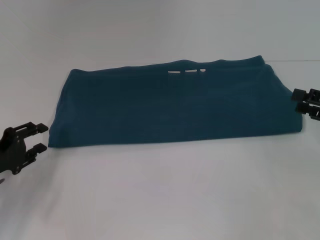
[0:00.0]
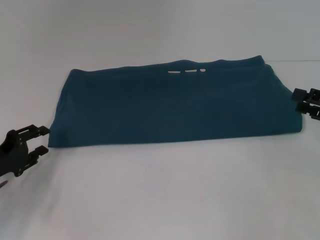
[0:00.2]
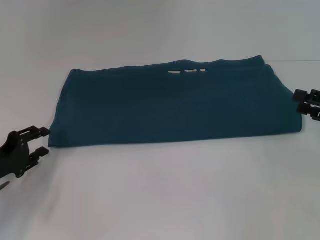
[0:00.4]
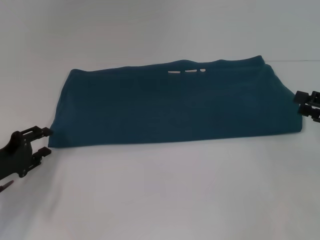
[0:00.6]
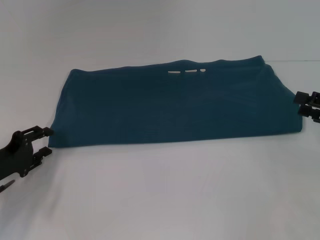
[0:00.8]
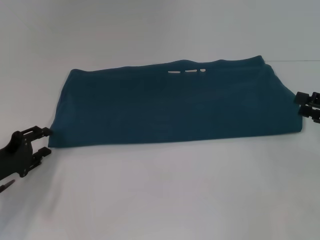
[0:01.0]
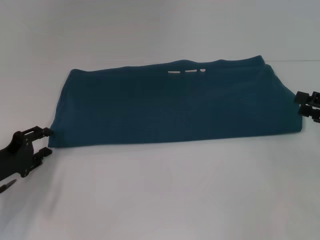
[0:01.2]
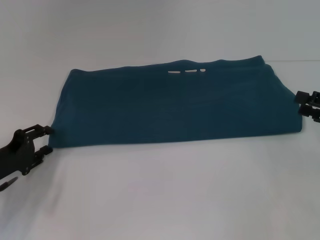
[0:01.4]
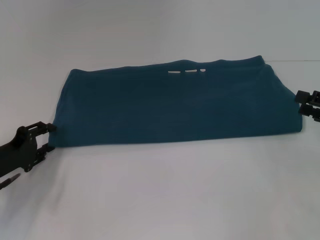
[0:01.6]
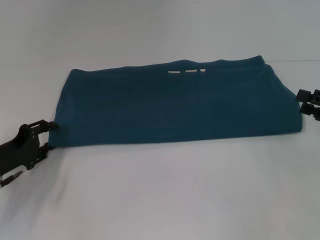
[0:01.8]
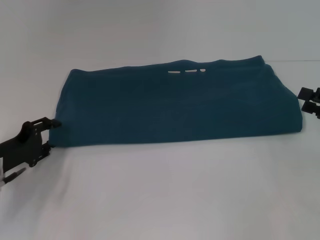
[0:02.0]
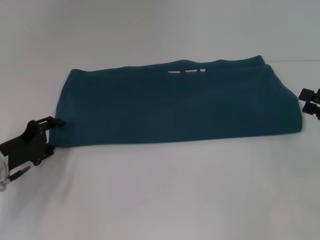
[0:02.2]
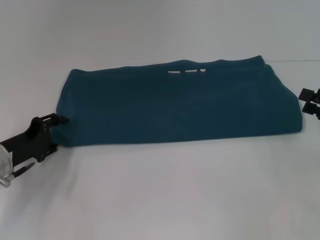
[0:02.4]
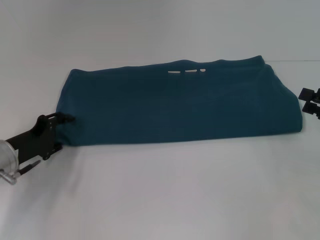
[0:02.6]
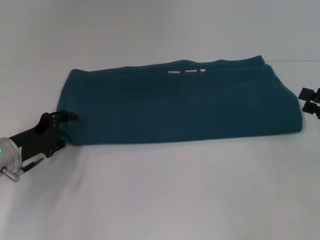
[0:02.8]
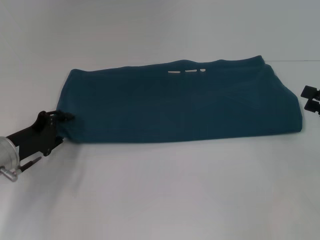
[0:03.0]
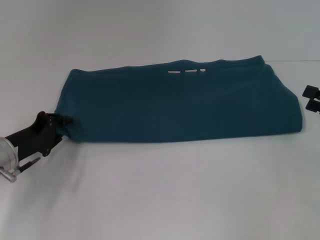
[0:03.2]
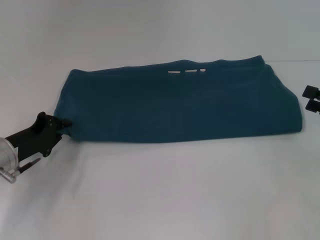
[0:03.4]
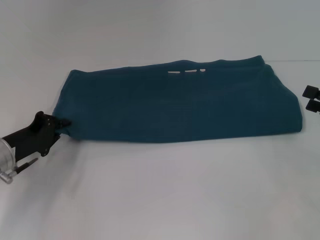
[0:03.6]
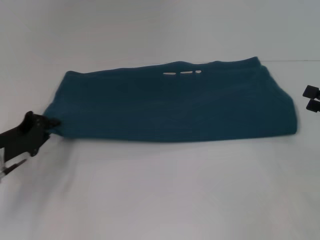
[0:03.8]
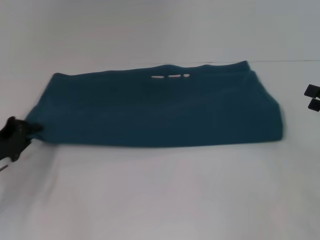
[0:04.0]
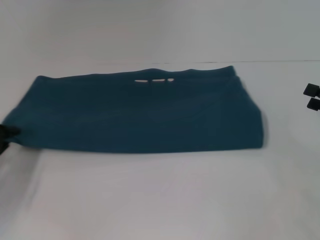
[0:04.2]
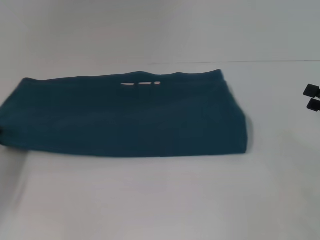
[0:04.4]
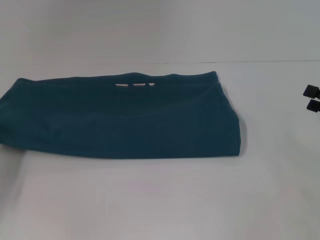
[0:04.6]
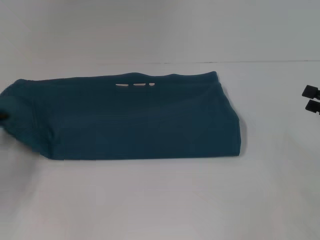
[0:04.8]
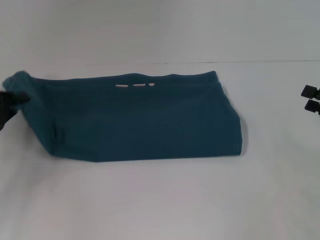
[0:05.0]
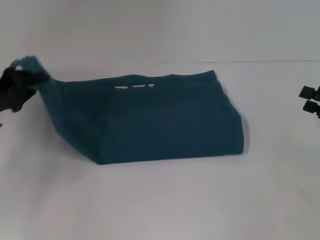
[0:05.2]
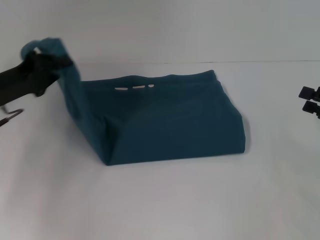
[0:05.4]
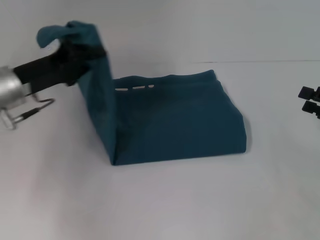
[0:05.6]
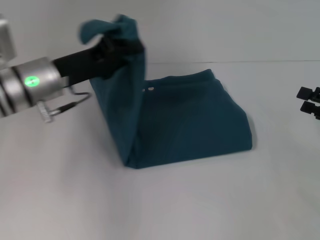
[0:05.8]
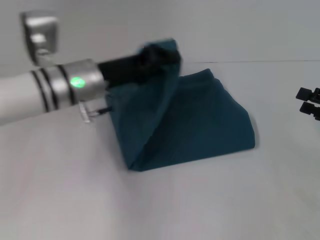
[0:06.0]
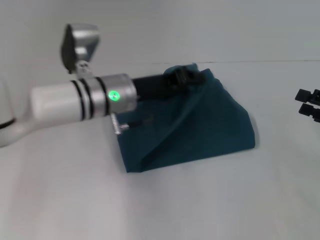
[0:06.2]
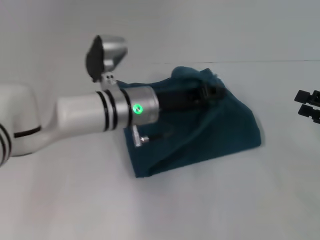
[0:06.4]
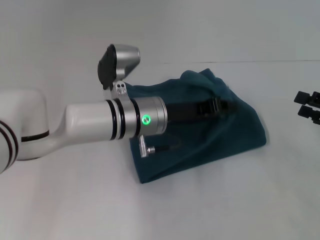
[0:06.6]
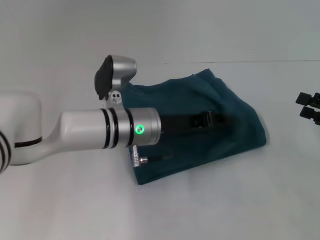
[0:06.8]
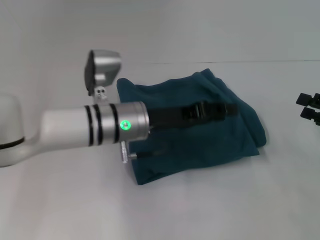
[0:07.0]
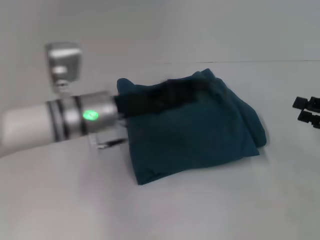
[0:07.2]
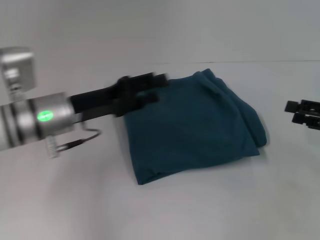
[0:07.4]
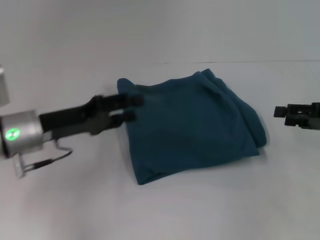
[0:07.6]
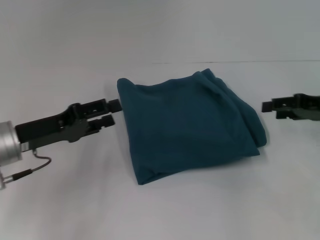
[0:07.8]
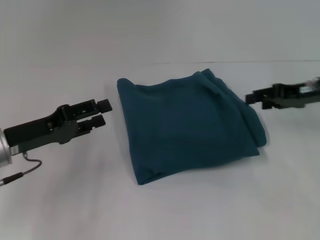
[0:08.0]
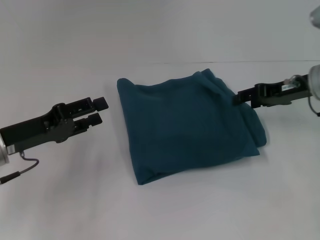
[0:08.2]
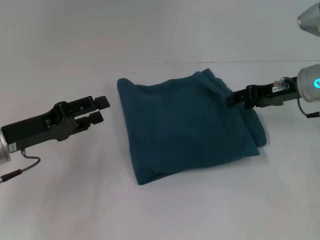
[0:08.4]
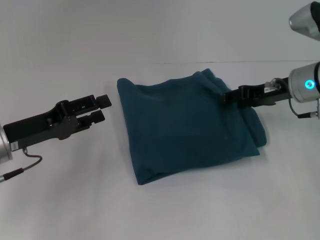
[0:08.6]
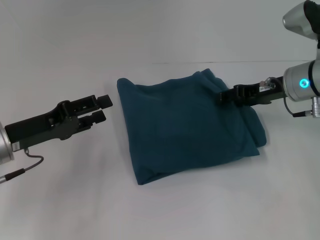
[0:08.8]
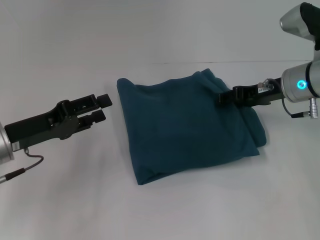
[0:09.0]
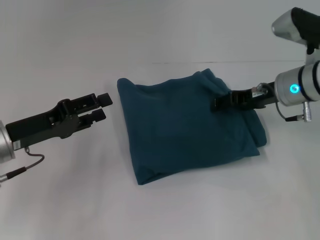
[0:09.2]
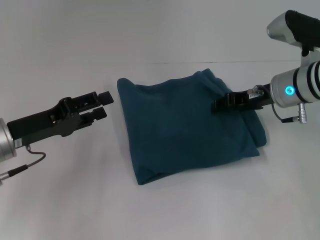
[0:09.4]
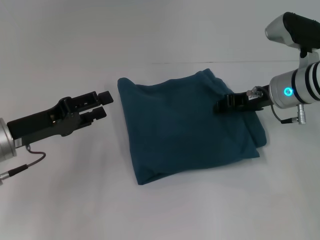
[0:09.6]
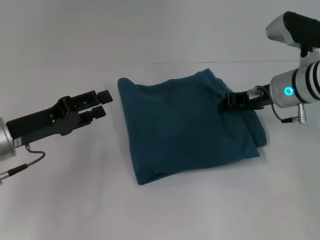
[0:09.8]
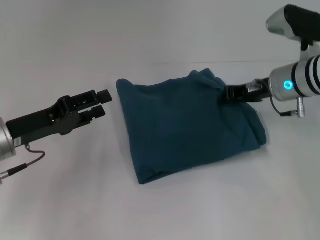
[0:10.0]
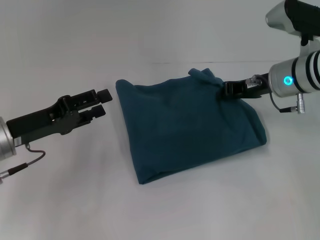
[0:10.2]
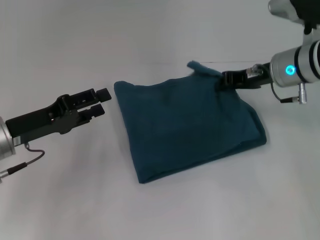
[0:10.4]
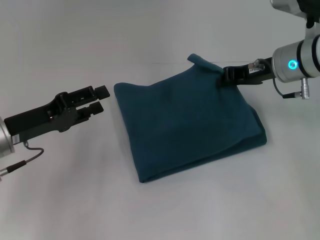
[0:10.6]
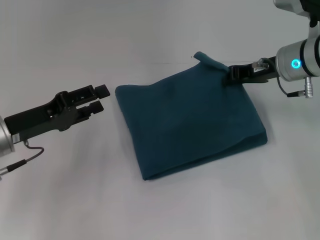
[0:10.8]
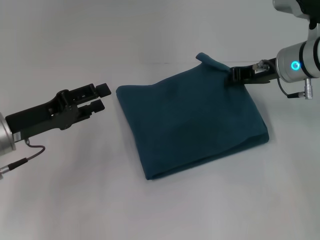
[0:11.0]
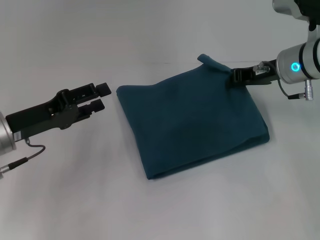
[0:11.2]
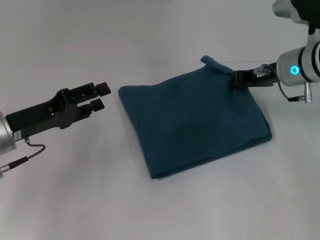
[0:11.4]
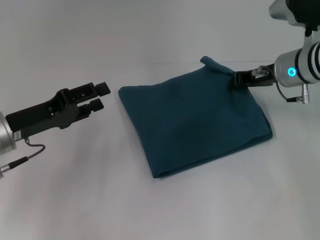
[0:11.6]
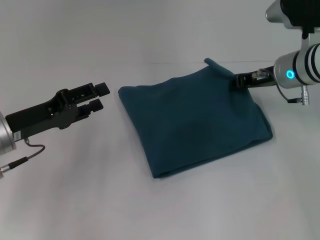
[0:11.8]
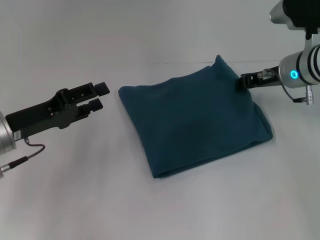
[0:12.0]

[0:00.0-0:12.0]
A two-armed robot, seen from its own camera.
Step, 0:00.0 to 0:07.2: Fold the clothes to the left.
0:00.0 to 0:01.6: The grippers move only a little.
0:01.6 to 0:03.0: The grippers make only small movements.
0:03.0 to 0:04.4: The left gripper shifts approximately 10 cm to the left, and closes its fingers.
0:04.4 to 0:06.0: The left gripper heads to the right, forward and upward, covering about 25 cm.
0:06.0 to 0:07.6: The left gripper heads to the left and backward, covering approximately 10 cm, and opens up.
0:07.6 to 0:09.0: The right gripper goes approximately 15 cm to the left and forward.
0:09.0 to 0:10.4: The right gripper closes.
0:10.4 to 0:12.0: There are only small adjustments of the grippers.

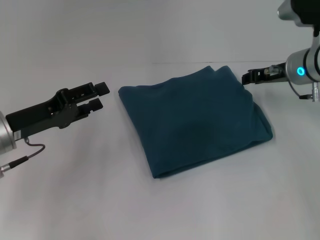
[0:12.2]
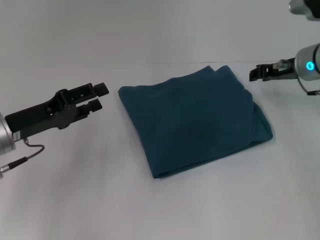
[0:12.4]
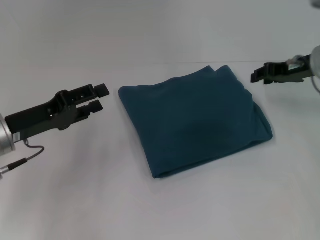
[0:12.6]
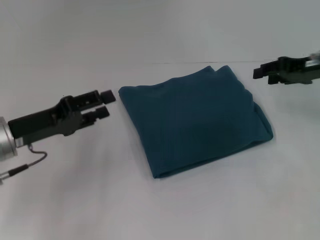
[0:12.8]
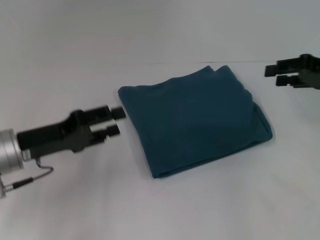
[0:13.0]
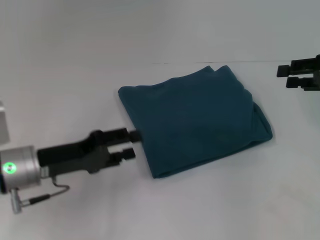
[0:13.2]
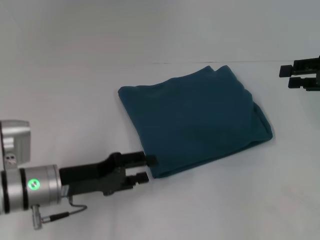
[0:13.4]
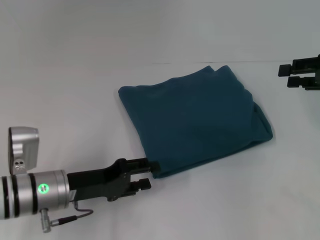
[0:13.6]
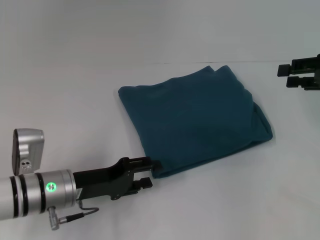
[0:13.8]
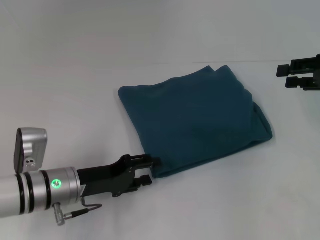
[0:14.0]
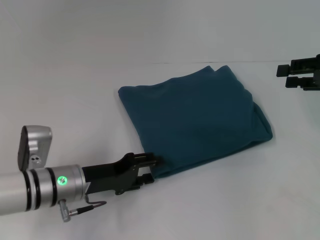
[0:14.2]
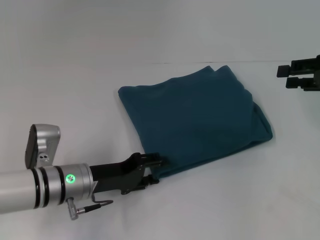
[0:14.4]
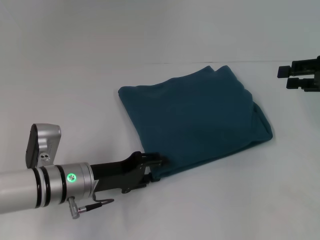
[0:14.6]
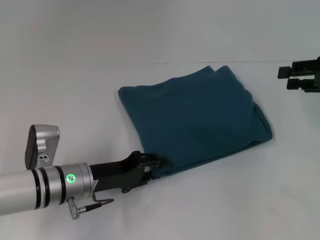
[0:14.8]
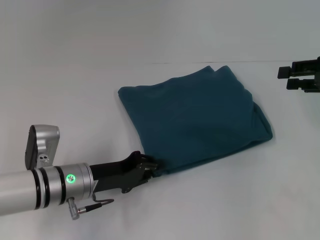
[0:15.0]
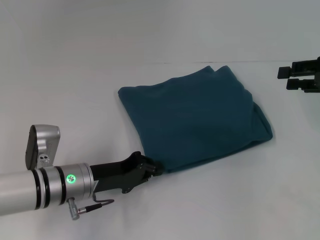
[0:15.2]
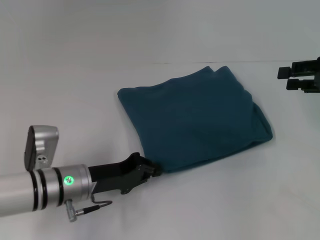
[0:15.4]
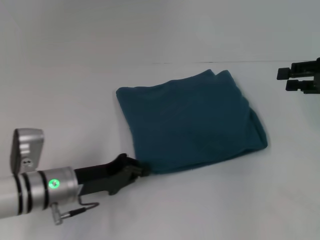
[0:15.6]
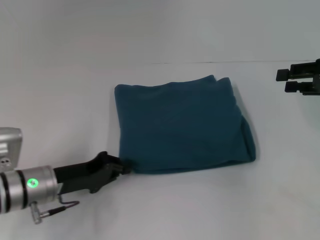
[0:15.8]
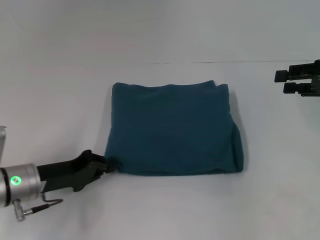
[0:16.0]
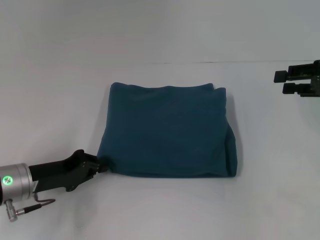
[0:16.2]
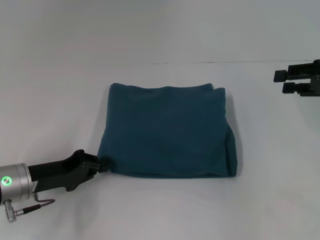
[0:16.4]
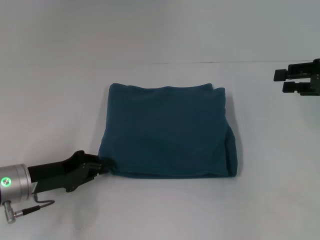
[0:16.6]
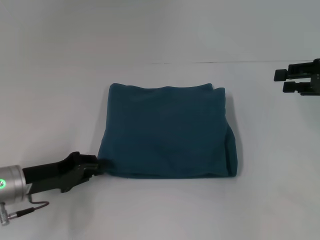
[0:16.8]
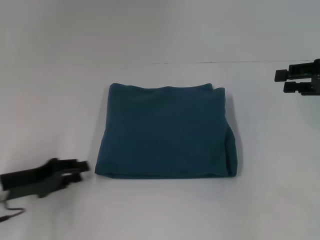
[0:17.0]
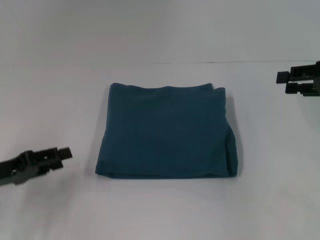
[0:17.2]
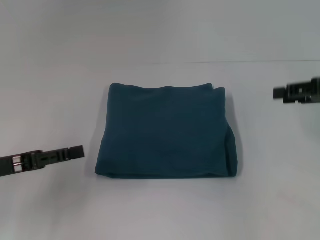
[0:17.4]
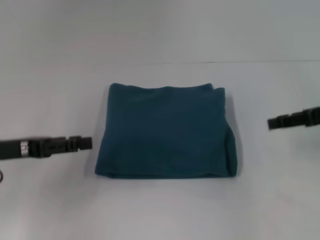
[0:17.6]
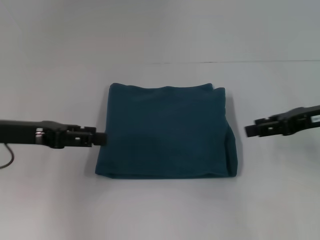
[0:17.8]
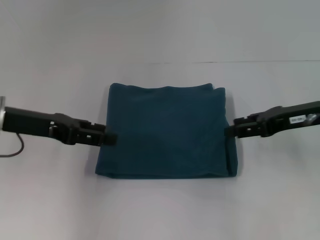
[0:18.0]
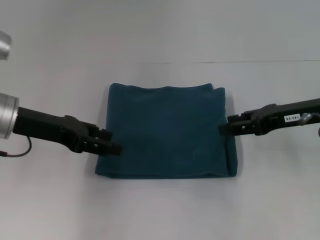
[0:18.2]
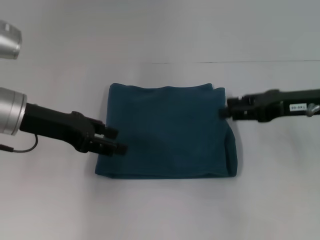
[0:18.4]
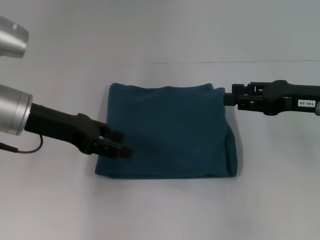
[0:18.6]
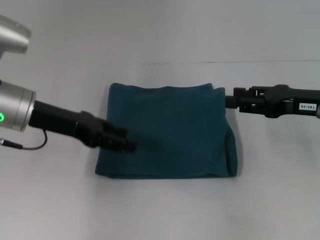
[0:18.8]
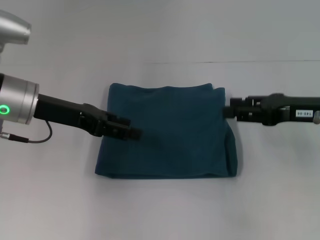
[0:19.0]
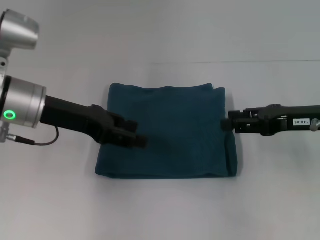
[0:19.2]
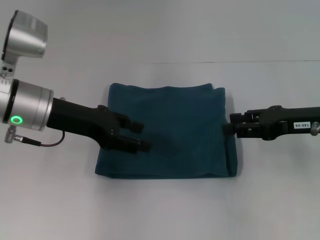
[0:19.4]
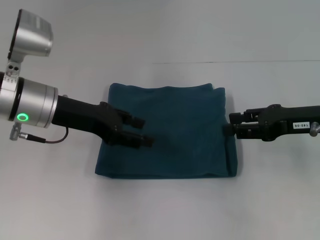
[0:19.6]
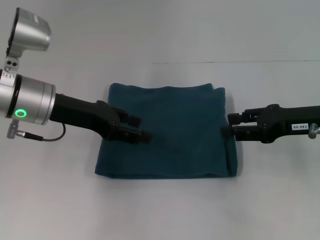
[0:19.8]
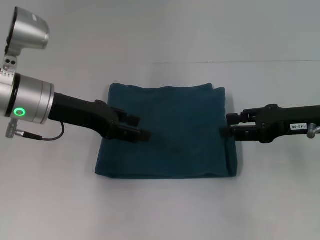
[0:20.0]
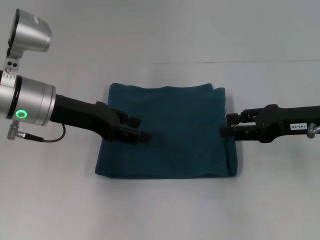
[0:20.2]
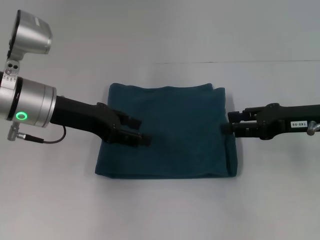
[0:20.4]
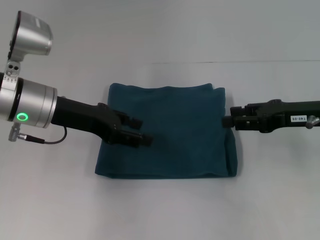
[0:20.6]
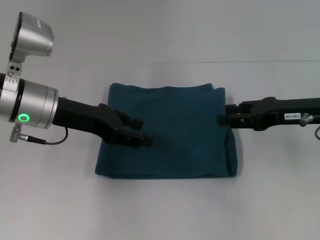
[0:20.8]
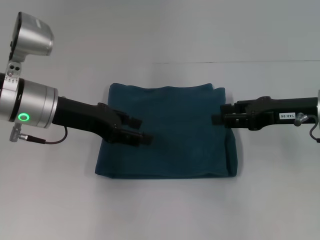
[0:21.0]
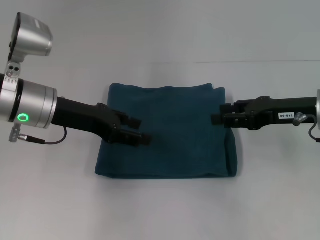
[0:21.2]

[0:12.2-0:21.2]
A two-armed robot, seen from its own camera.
0:12.2 to 0:13.8: The left gripper shifts roughly 10 cm to the right and downward. Meanwhile the right gripper travels to the right and backward by some 15 cm.
0:13.8 to 0:15.2: The left gripper closes.
0:15.2 to 0:16.6: The left gripper heads to the left, covering roughly 10 cm.
0:16.6 to 0:18.2: The right gripper shifts roughly 10 cm to the left; the left gripper is displaced upward and forward by approximately 15 cm, and opens up.
0:18.2 to 0:21.2: The grippers move only a little.

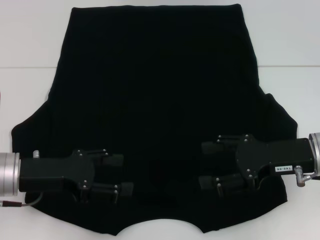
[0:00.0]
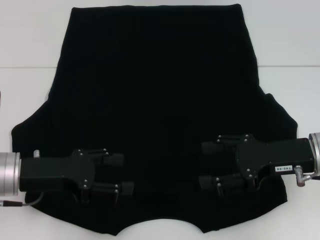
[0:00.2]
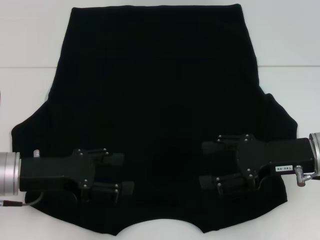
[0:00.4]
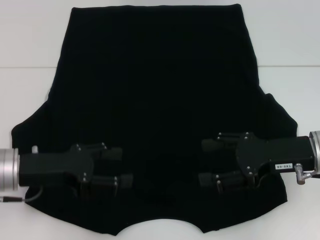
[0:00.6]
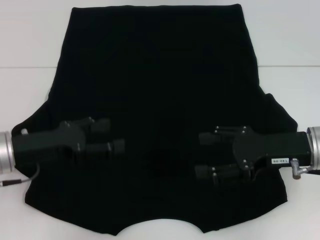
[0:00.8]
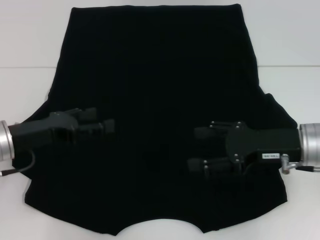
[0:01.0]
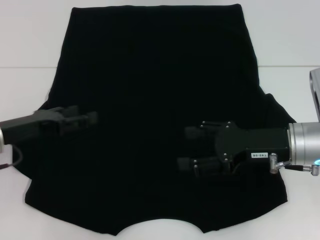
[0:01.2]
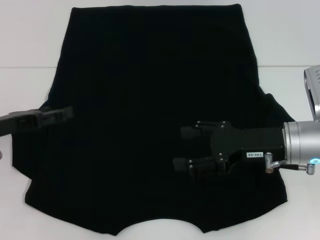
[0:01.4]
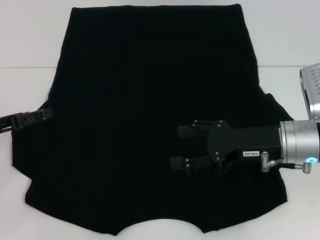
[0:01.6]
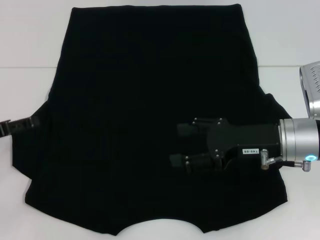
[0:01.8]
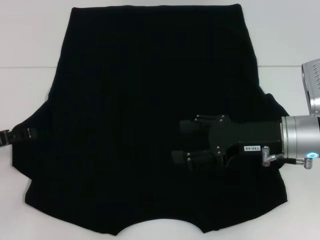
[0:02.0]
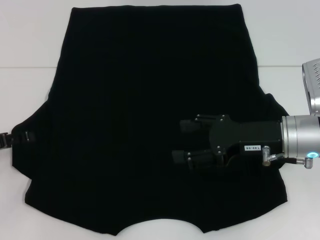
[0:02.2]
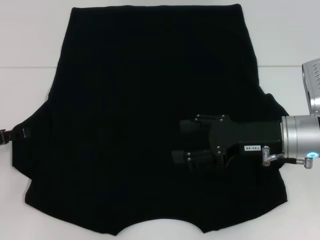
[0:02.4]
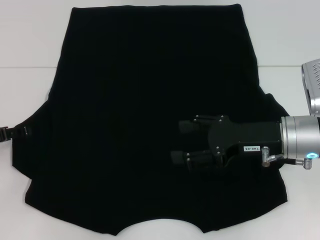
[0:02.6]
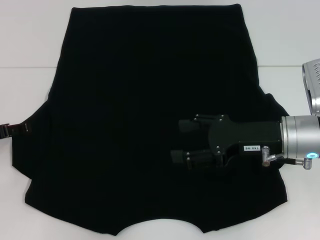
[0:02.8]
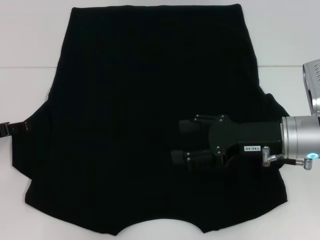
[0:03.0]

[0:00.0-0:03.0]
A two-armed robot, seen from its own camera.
0:00.0 to 0:01.6: The left gripper travels to the left by about 10 cm.
0:01.6 to 0:03.0: The grippers move only a little.
